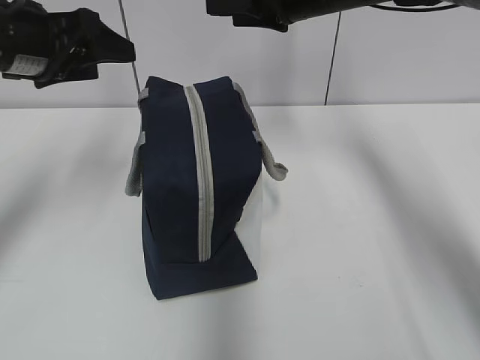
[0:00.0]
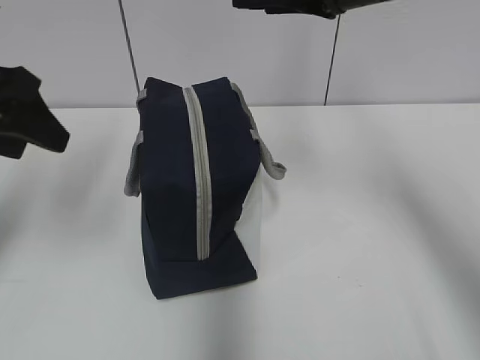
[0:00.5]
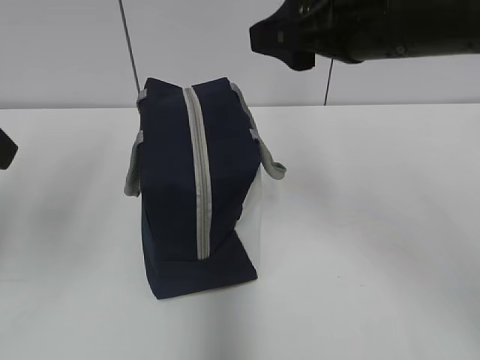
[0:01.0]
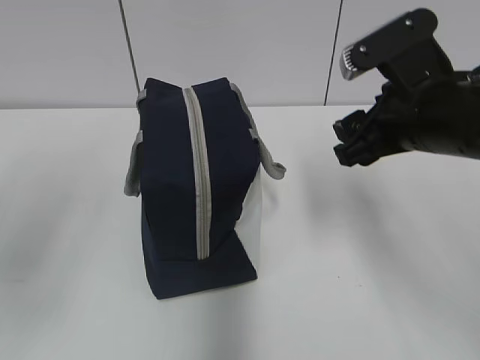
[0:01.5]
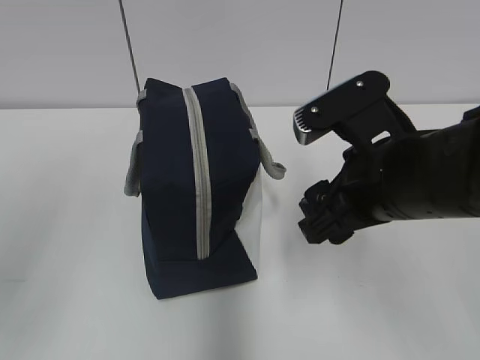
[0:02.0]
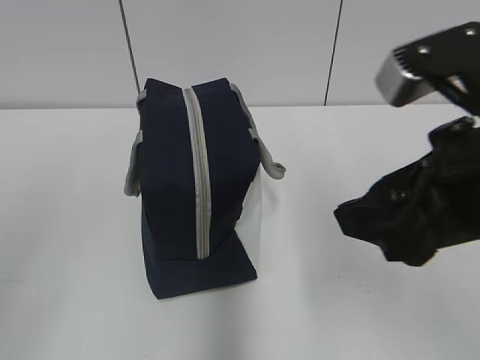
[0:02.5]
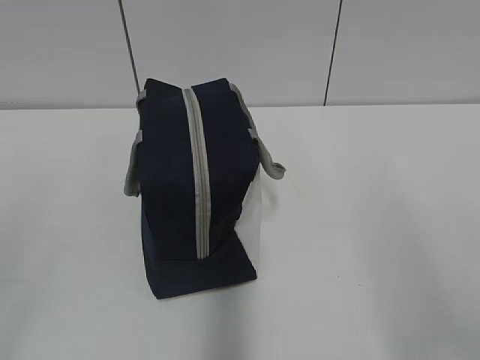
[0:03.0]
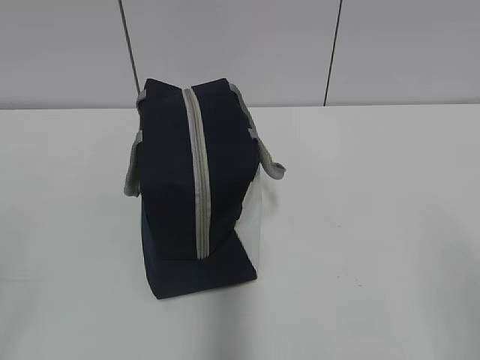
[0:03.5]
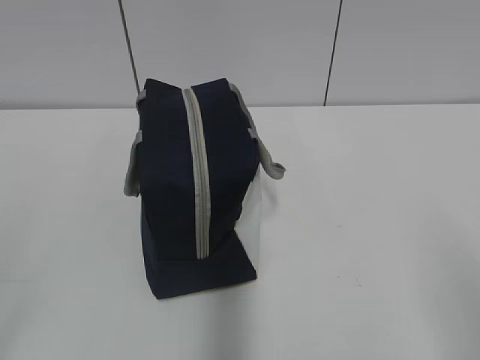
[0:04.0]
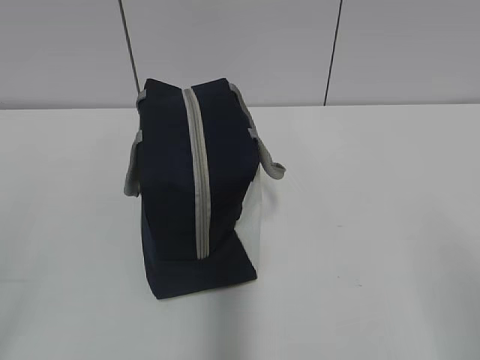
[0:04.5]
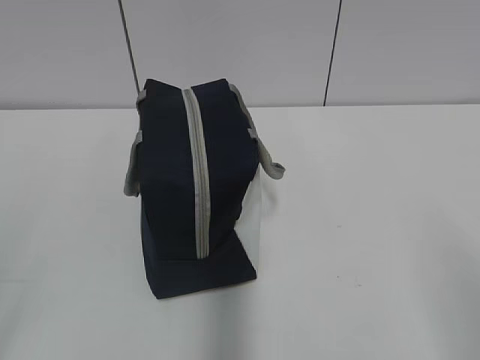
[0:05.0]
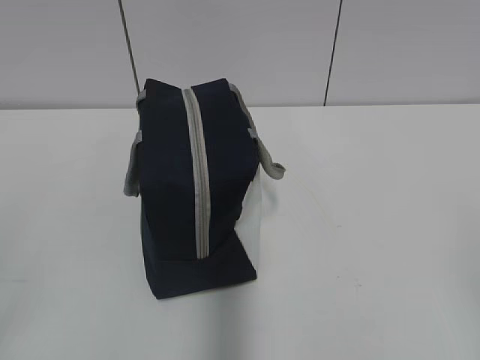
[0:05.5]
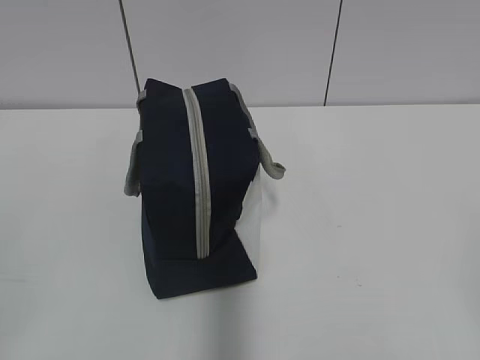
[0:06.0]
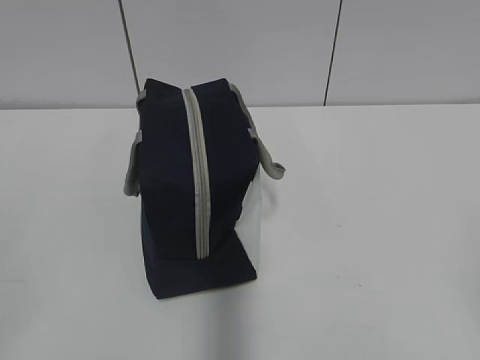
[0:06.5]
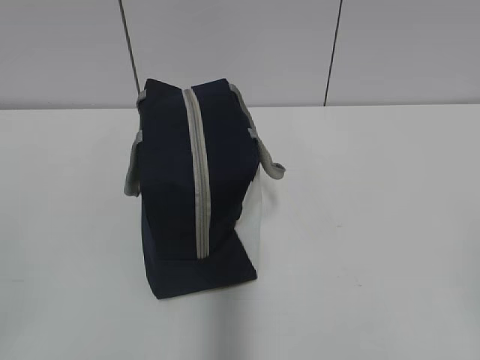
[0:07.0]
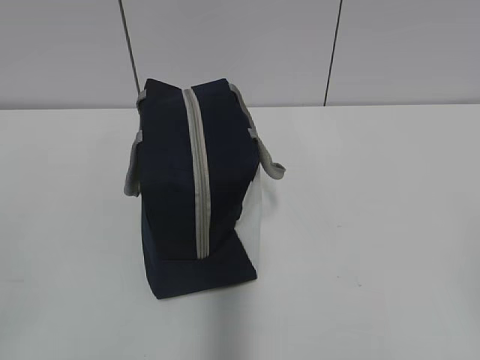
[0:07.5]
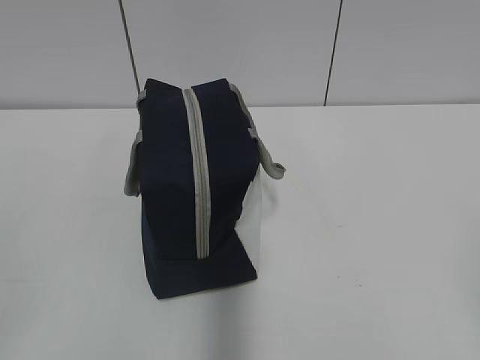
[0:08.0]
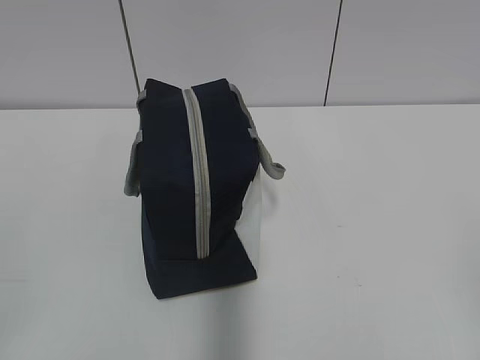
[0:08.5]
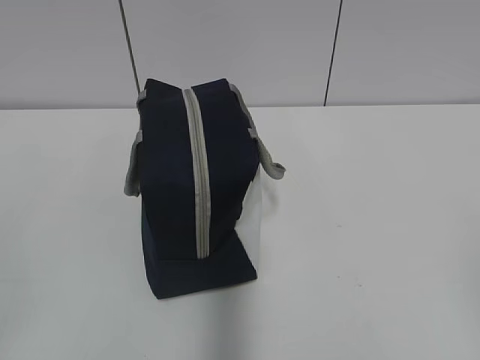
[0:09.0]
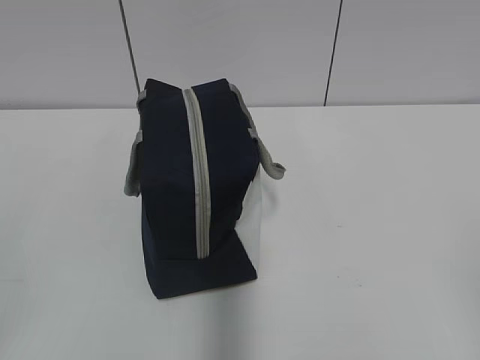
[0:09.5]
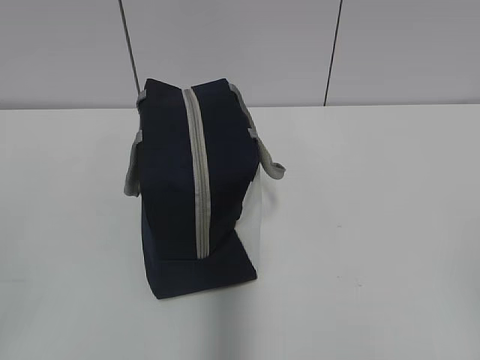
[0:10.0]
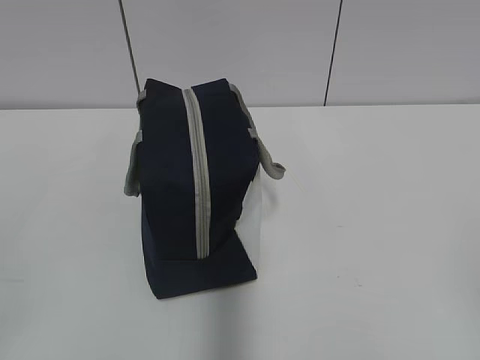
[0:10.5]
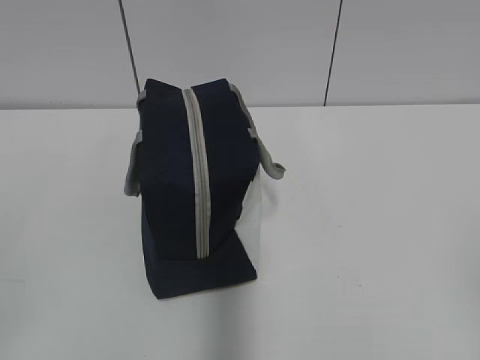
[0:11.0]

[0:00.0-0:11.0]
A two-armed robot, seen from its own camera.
0:00.0 to 0:02.0: Both grippers travel together backward, approximately 25 cm.
0:02.0 to 0:03.5: The left gripper moves backward and downward, approximately 15 cm. The right gripper goes some 25 cm backward and to the right.
0:09.0 to 0:11.0: Both grippers stay put.
